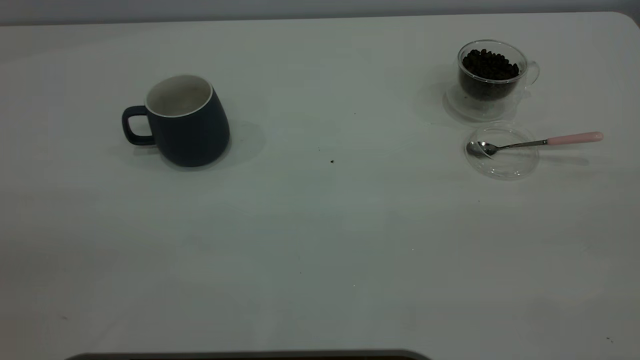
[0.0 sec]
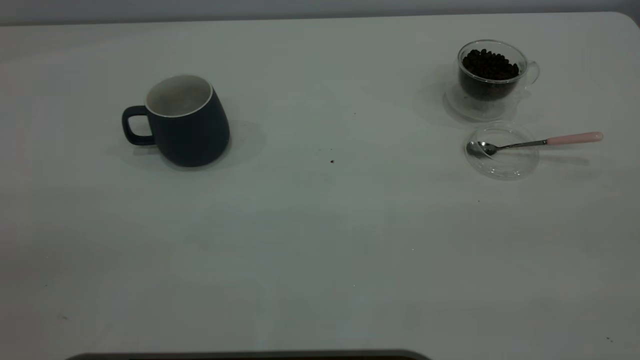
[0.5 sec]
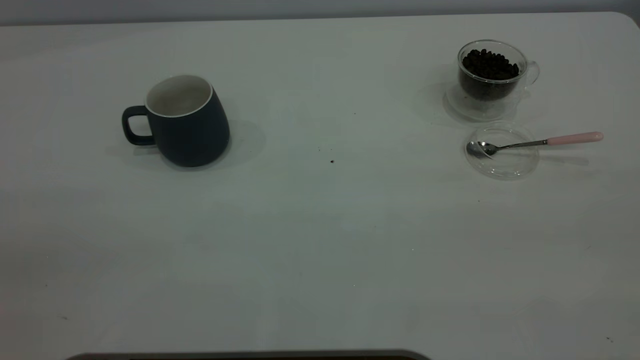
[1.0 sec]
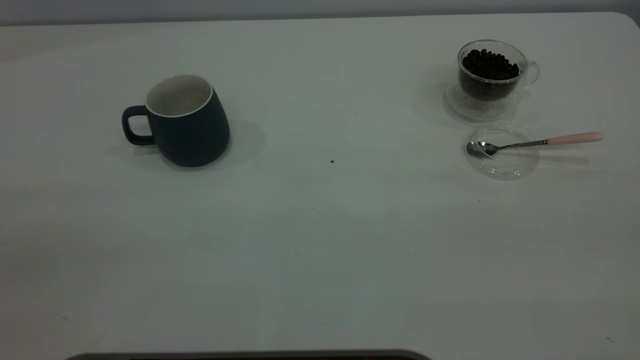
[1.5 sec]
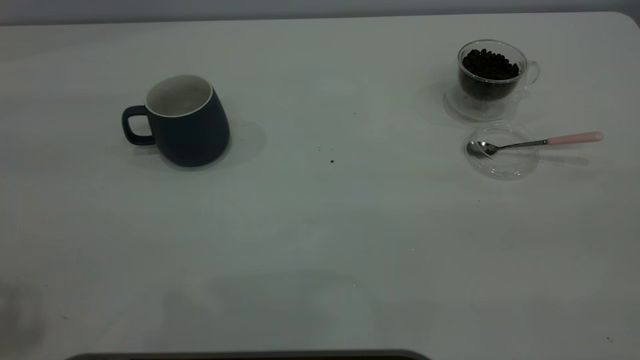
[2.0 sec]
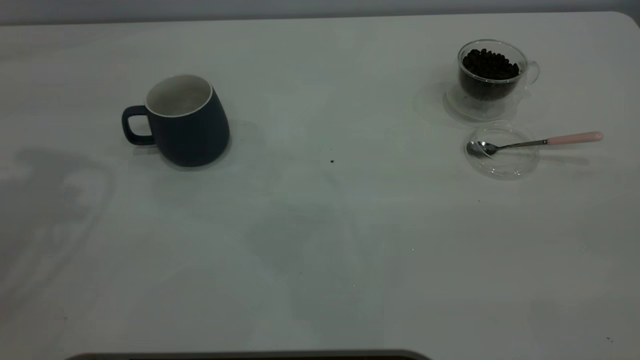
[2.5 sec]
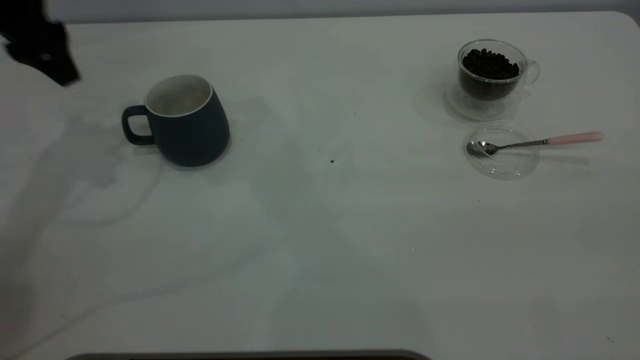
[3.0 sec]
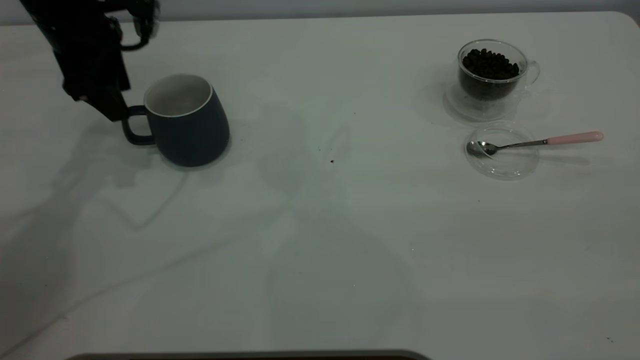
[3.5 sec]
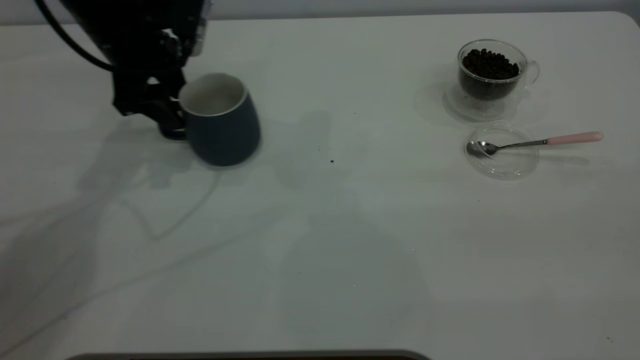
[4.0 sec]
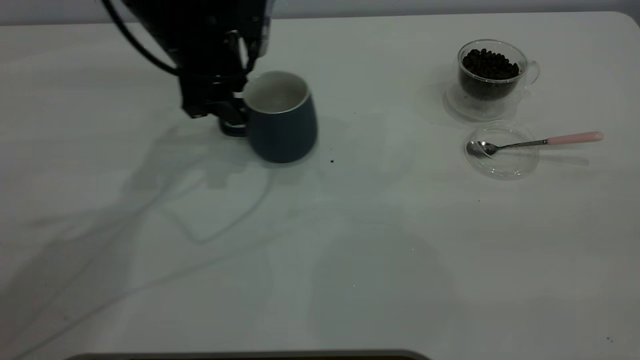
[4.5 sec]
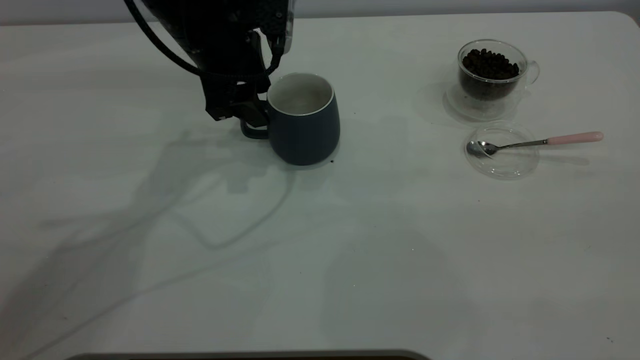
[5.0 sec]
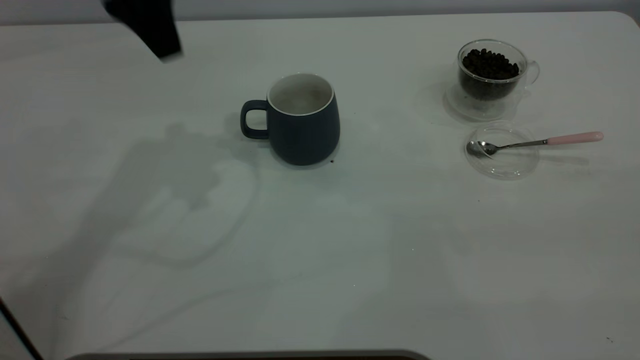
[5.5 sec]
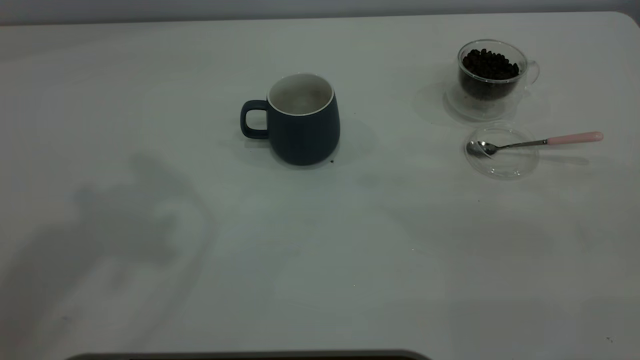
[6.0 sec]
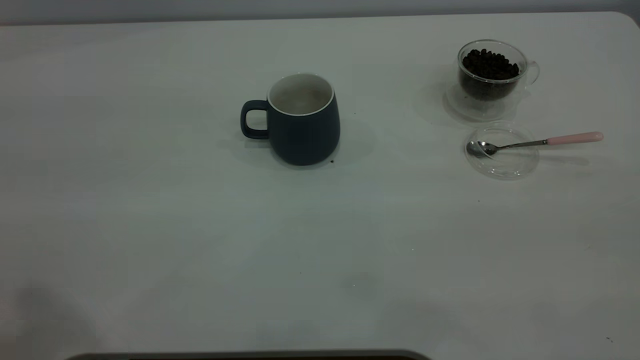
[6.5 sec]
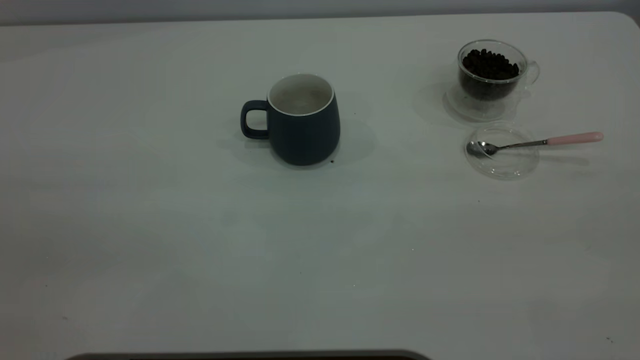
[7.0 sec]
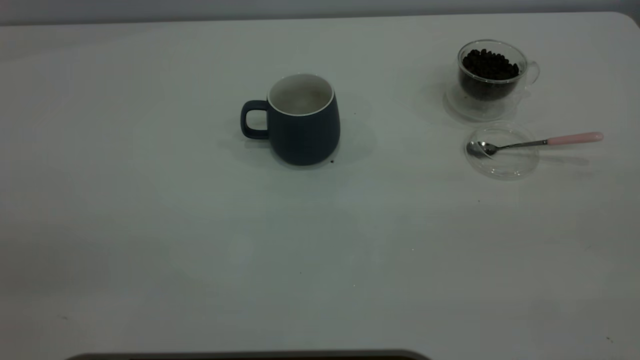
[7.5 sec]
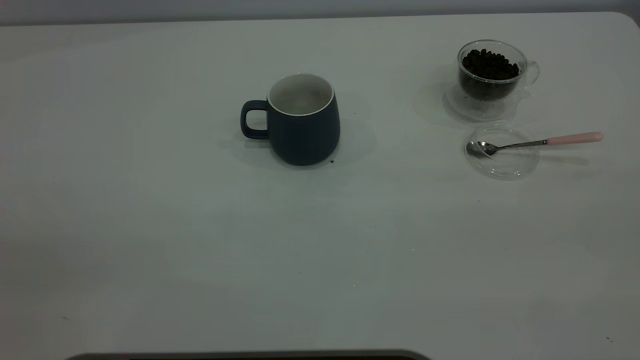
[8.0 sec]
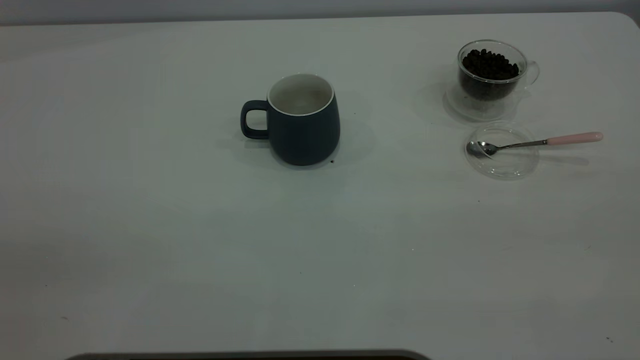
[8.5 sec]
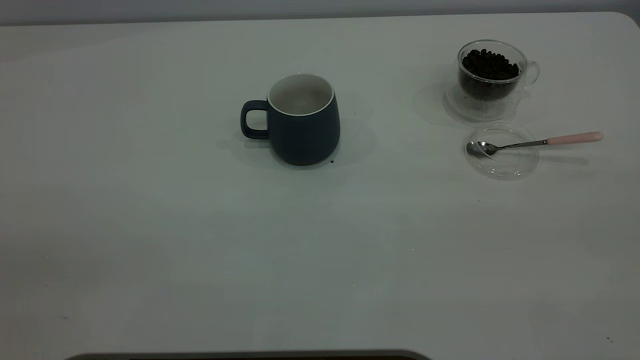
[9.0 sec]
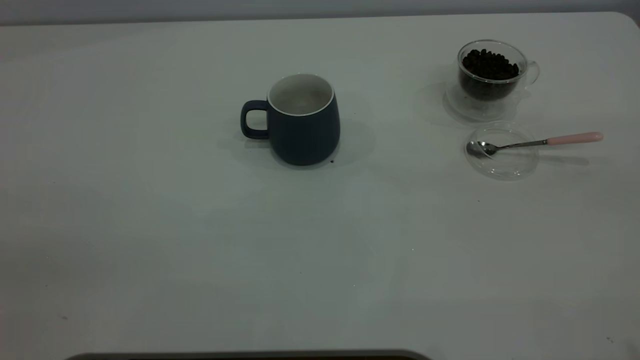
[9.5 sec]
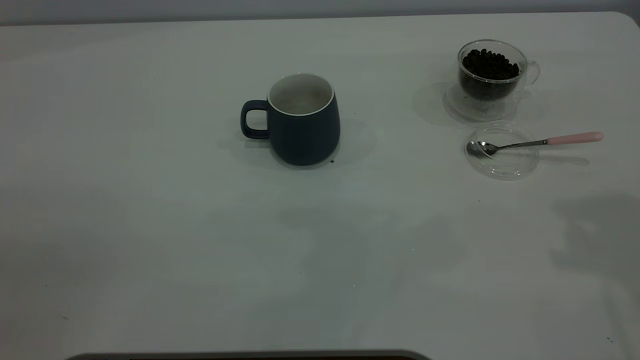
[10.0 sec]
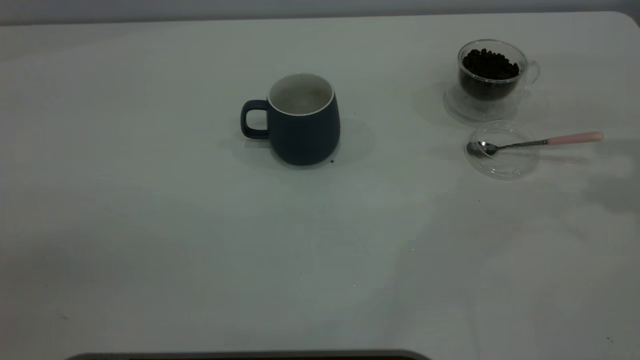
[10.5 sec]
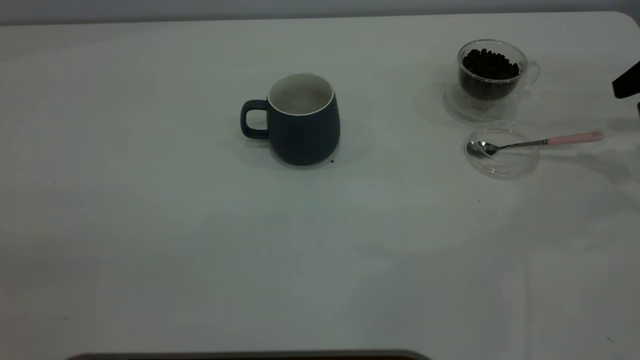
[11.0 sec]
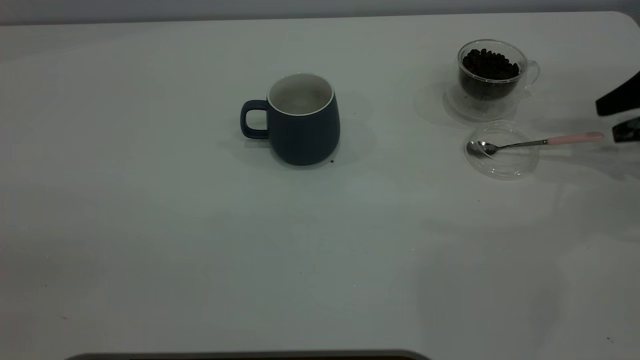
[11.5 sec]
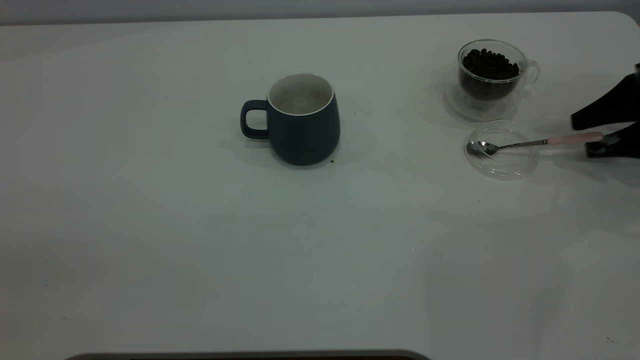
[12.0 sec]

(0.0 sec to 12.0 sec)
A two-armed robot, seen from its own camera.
Task of the whole recording: the left gripper place the grey cup in the center of the table, the right gripper take the pink spoon from the cup lid and scoop out the coffee beans from the coffee cup and put them into the grey cup, the right gripper put the spoon back into the cup lid.
Step, 0.0 sec - 5.0 sec: Move the cup to the center of view.
2.0 sec - 4.0 sec: The left gripper is displaced forward and downward by about 35 cm.
4.0 sec - 6.0 sec: The left gripper goes some 35 cm upward and backward.
10.0 sec - 12.0 sec: The right gripper shifts approximately 30 cm downward, forward and to the right.

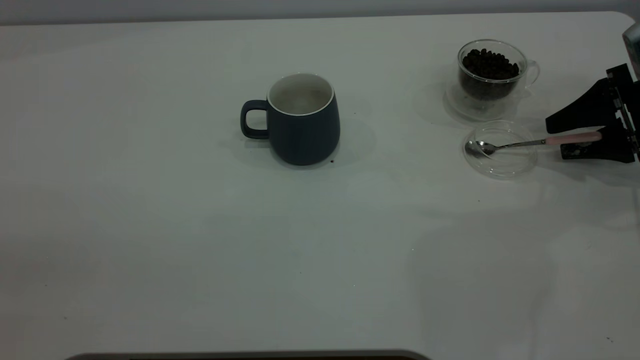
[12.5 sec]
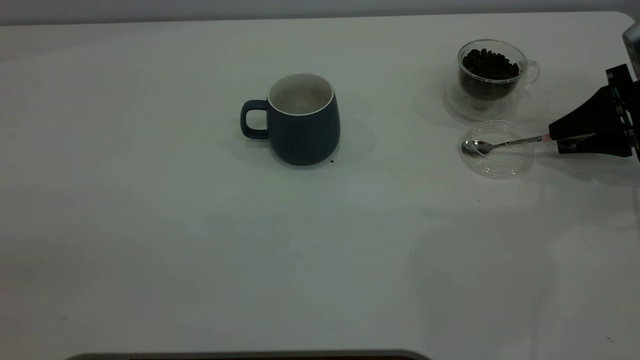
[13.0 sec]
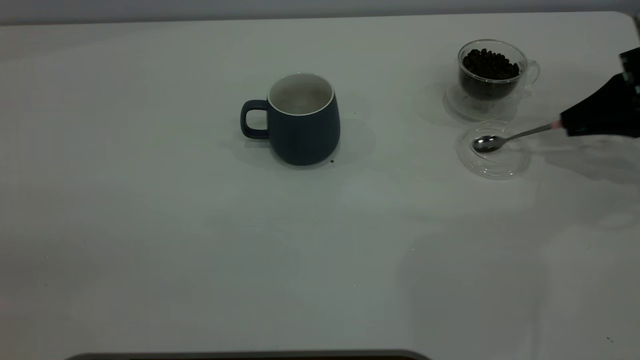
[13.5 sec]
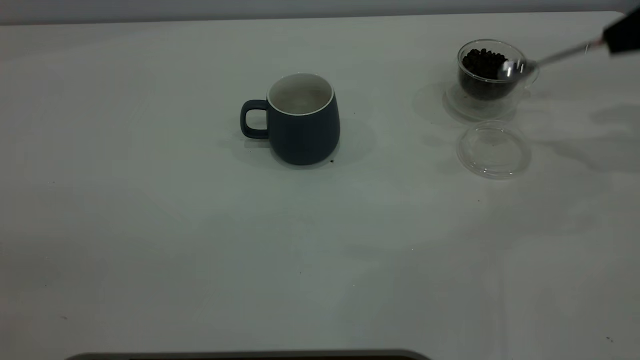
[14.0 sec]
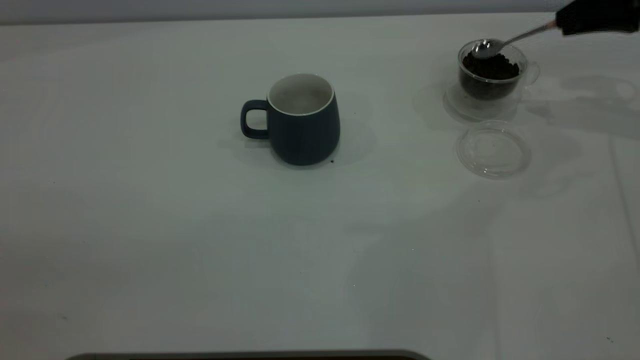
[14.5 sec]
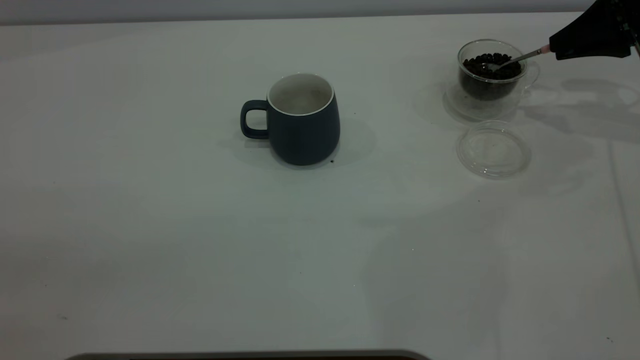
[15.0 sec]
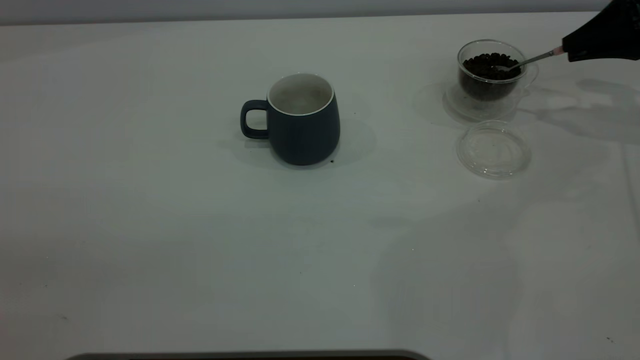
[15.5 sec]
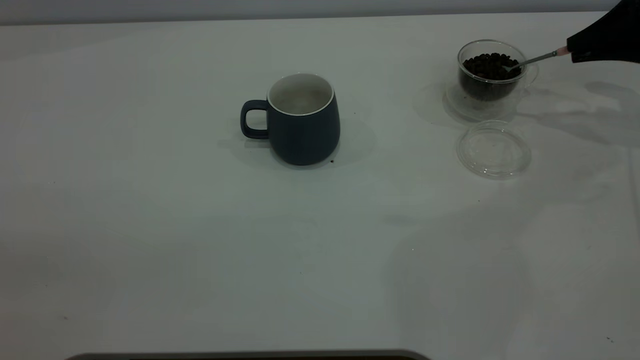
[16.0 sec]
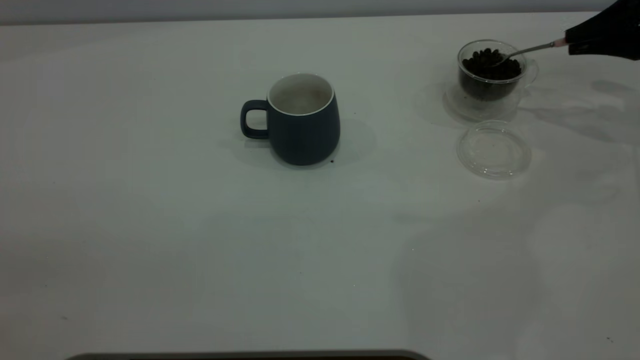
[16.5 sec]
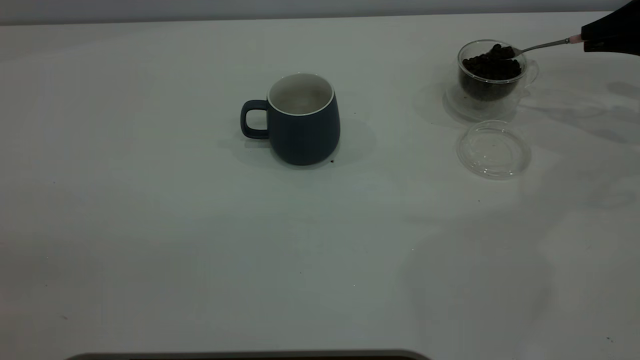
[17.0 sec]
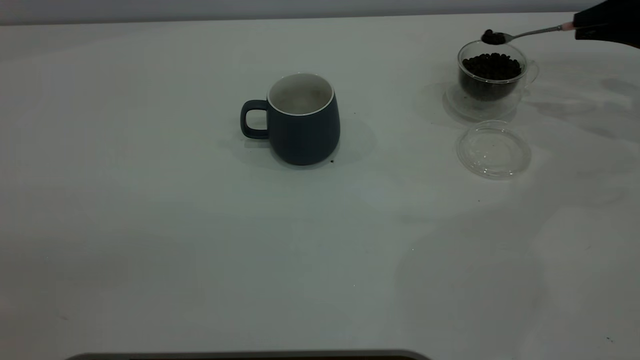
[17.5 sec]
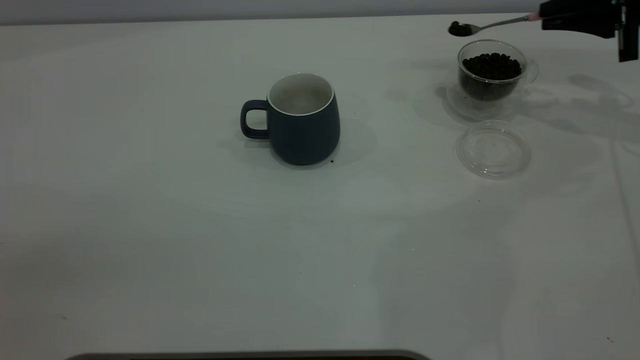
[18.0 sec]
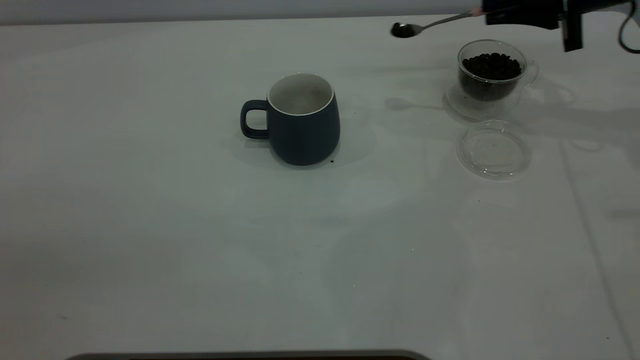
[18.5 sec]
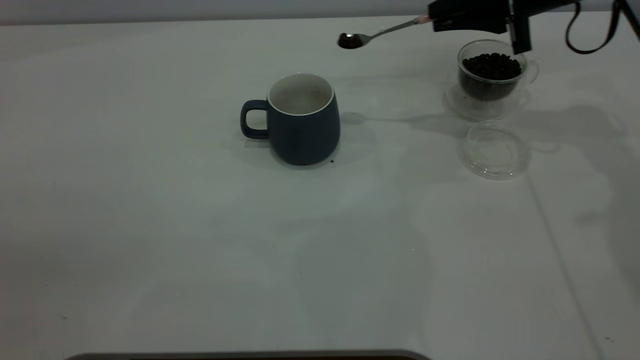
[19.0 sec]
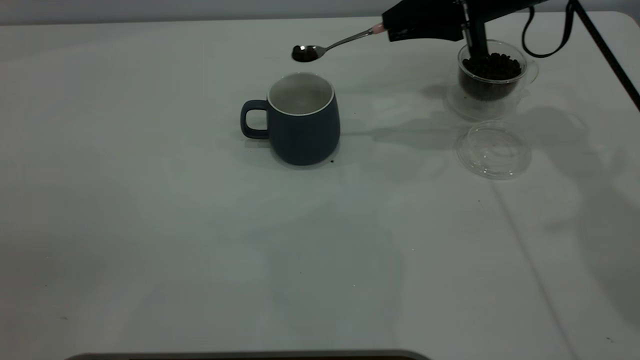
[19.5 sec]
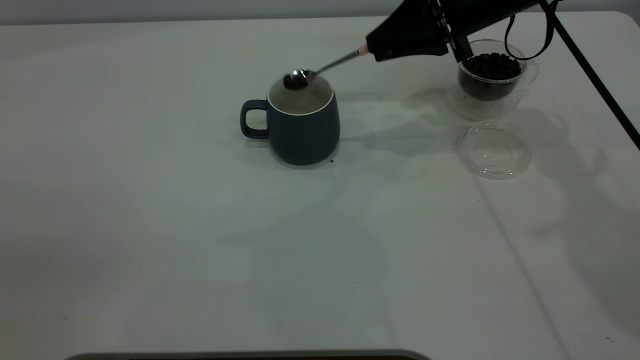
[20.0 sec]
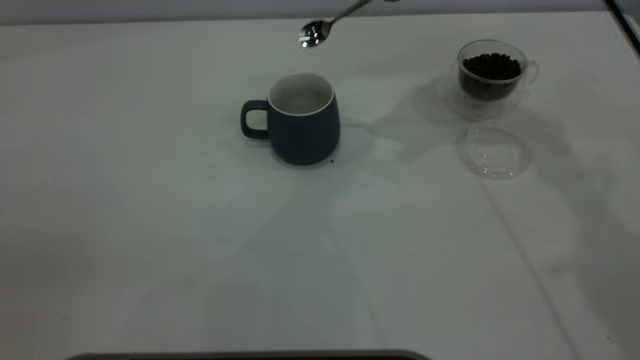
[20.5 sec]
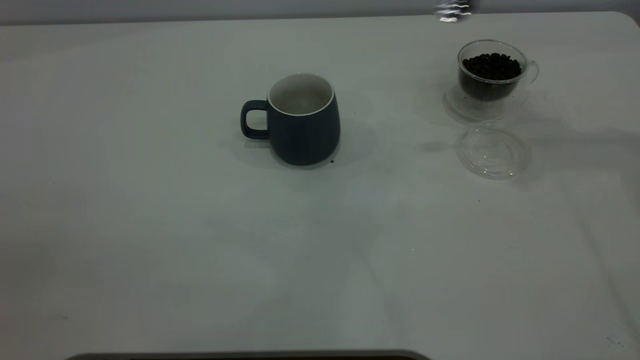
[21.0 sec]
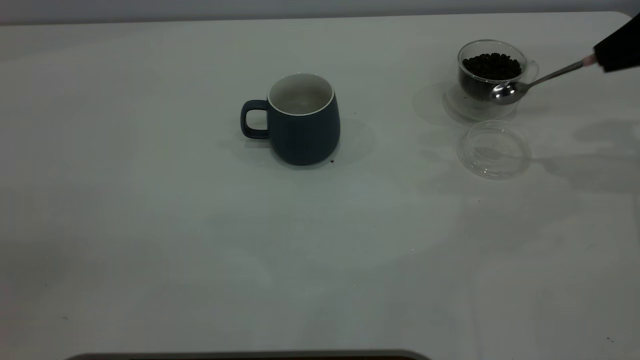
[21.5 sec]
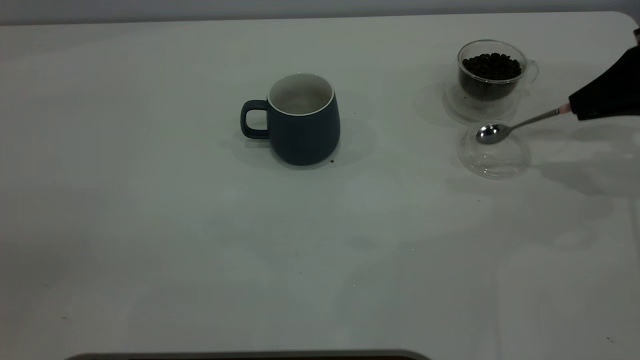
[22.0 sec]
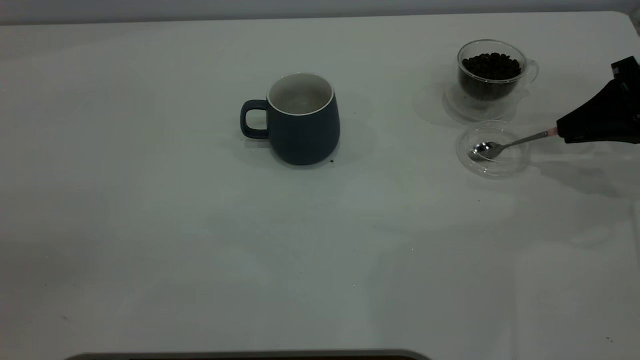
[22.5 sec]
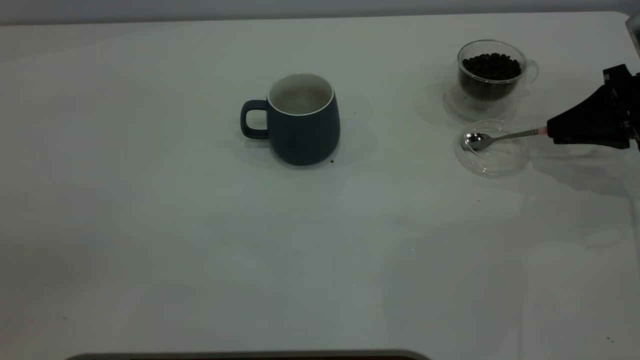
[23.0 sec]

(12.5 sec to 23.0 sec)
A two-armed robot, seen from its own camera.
Task of the whole recording: the left gripper place the grey cup in the center of the table, the right gripper take the pink spoon from the cup lid and scoop out the coffee beans from the coffee cup and put them into the grey cup, the right gripper put the spoon back into the cup lid.
Step, 14.0 sec - 20.0 sec: Scoop a spoonful of beans into the cup.
12.5 sec - 14.5 sec: The right gripper heads upward and forward, covering some 10 cm, and closes its fingers.
16.5 sec - 19.0 sec: The right gripper goes roughly 15 cm to the left.
19.0 sec - 21.0 sec: The right gripper is displaced upward, to the right and backward by some 20 cm.
21.0 sec - 23.0 sec: The right gripper shifts about 25 cm downward.
